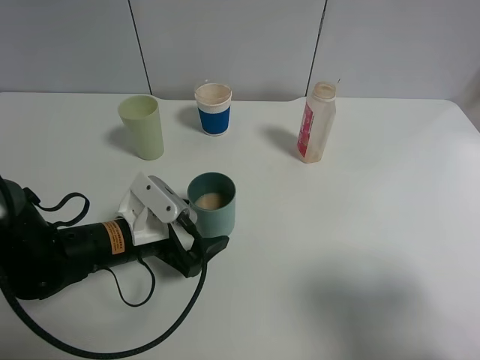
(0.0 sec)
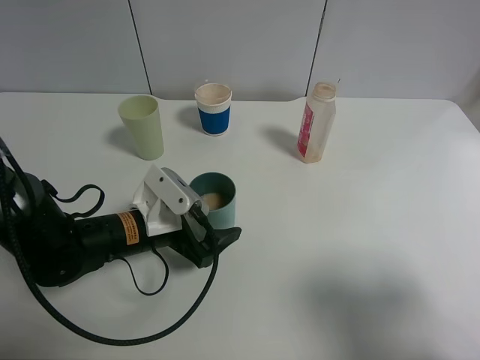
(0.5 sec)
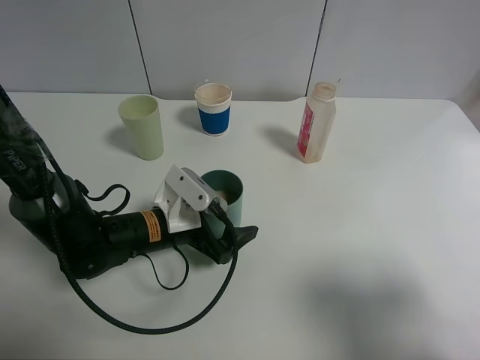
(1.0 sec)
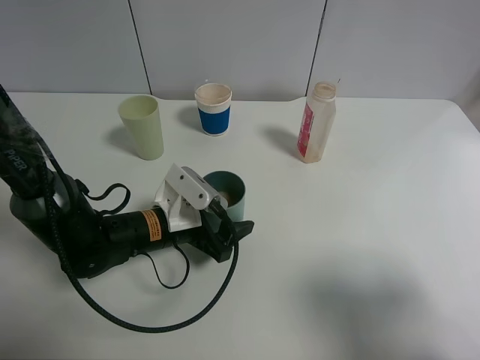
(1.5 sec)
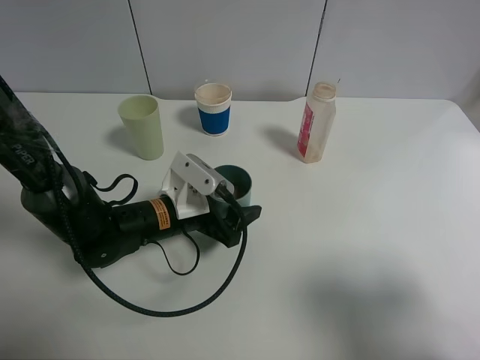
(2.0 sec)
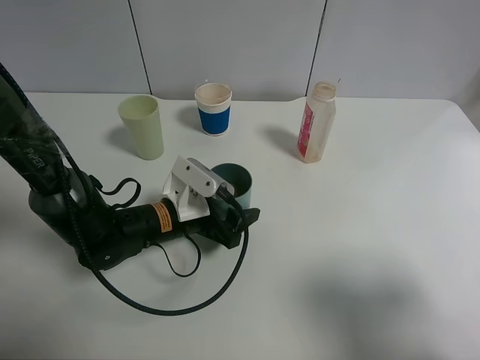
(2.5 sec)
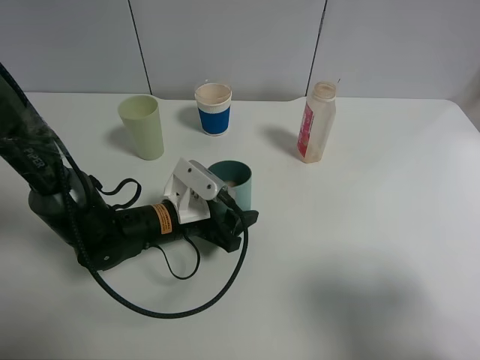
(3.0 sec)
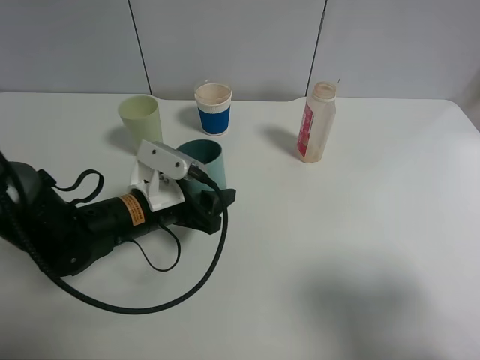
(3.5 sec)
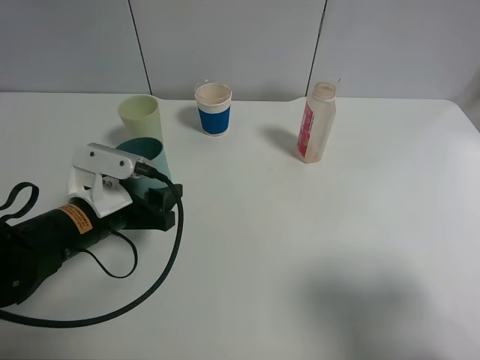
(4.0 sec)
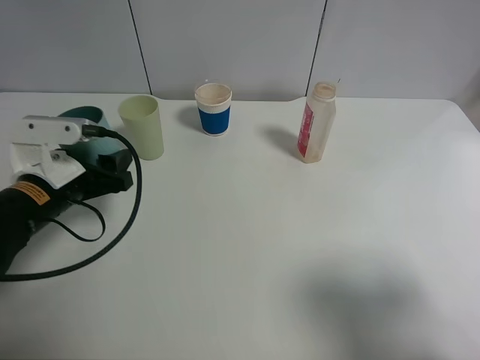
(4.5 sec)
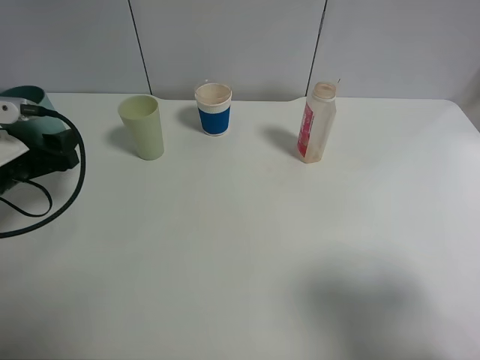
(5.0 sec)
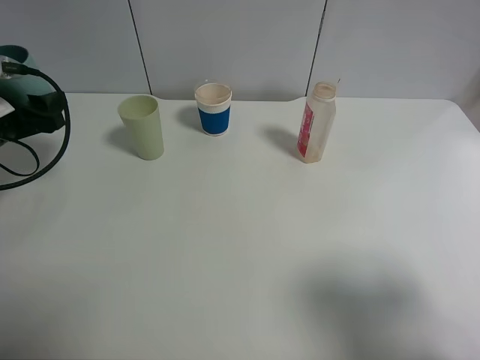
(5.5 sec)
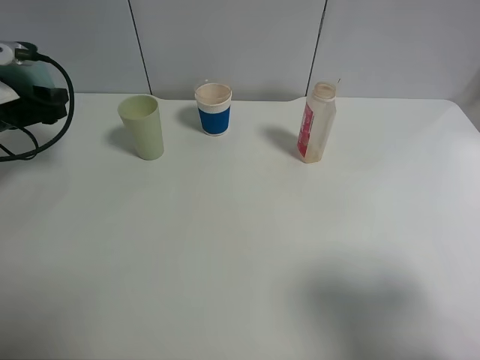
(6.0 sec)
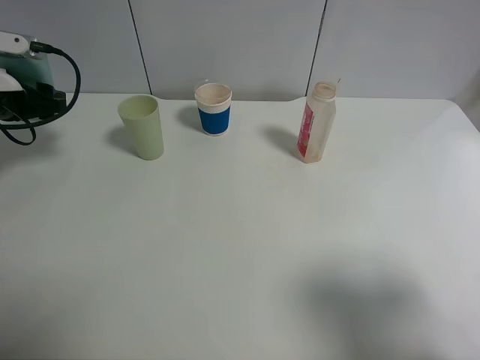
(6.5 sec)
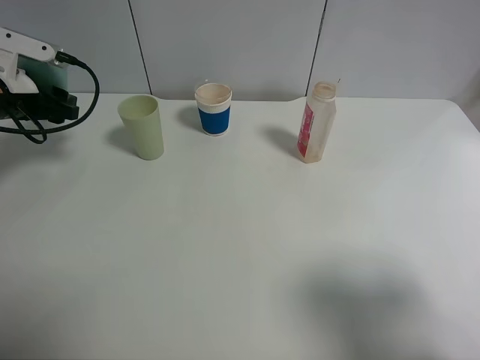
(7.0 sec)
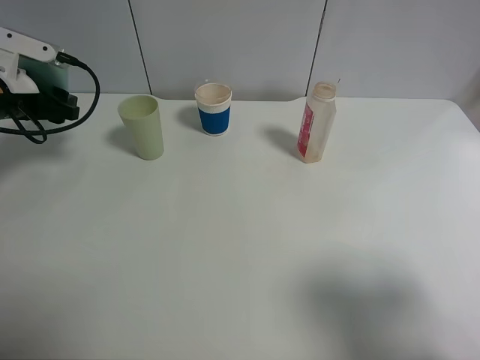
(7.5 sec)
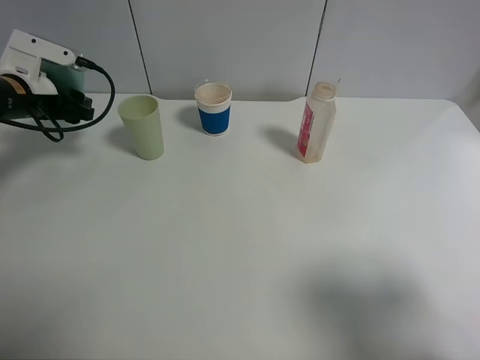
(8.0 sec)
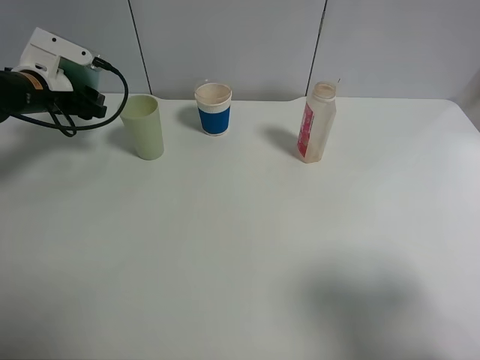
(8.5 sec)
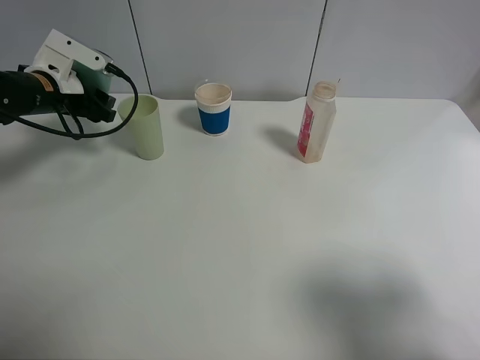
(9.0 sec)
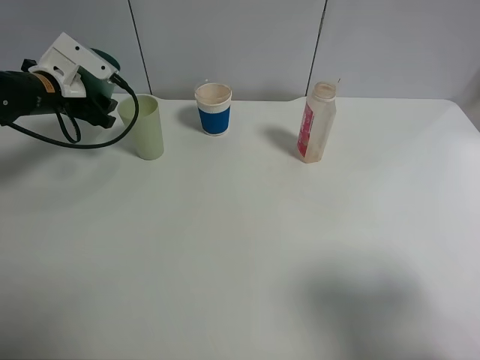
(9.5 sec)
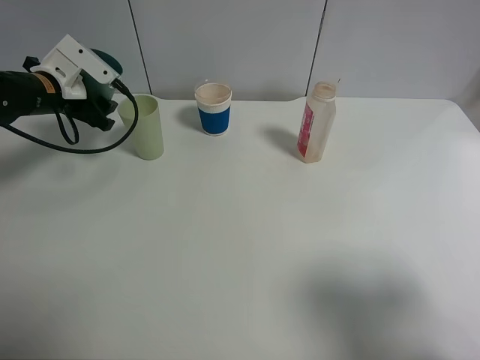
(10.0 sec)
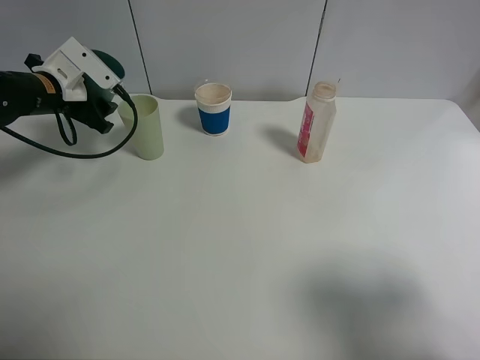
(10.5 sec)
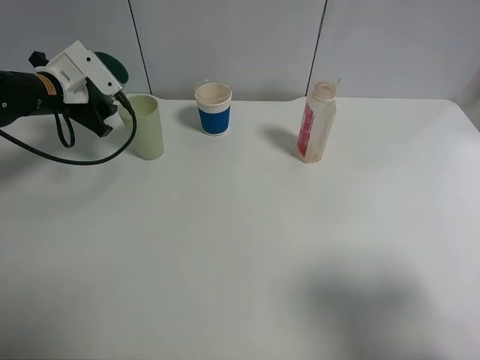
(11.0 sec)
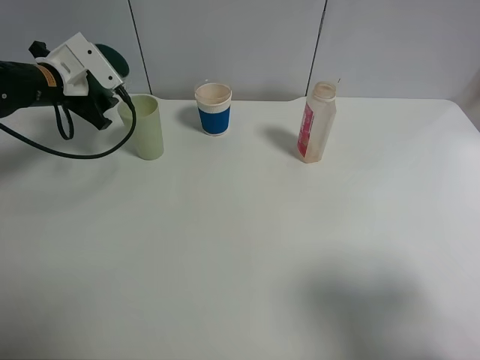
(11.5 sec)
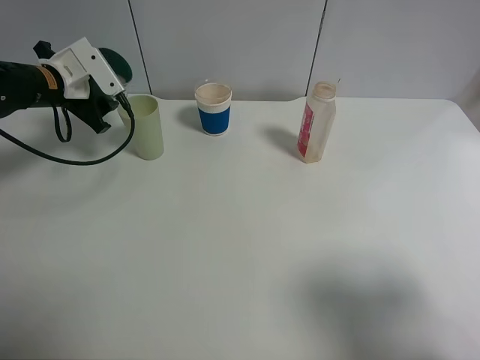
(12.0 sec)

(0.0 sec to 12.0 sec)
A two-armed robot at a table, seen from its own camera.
Task of the whole recording: use a clamp to hold the bottle of the drink, pour the beverage into a random cup, then clamp the cup containing the drink and pour the drink into another random cup.
Step, 0.0 sec - 2.5 sec: Pick up the blue plastic cup bottle with left gripper.
0.0 sec - 2.0 sec: The left gripper shifts by roughly 5 cm, and closes its fingers.
2.0 sec - 4.0 sec: The left gripper heads to the left, covering some 5 cm.
4.0 sec - 6.0 sec: The left gripper heads to the left, forward and upward, covering approximately 20 cm.
6.0 sec - 8.0 sec: The left gripper goes about 5 cm forward.
10.0 sec - 12.0 sec: There are only small adjustments of the grippers.

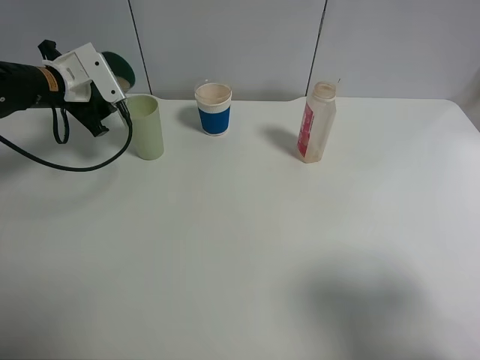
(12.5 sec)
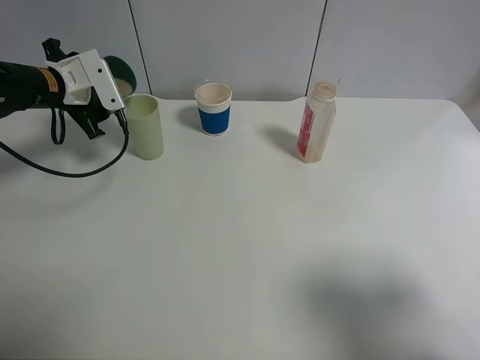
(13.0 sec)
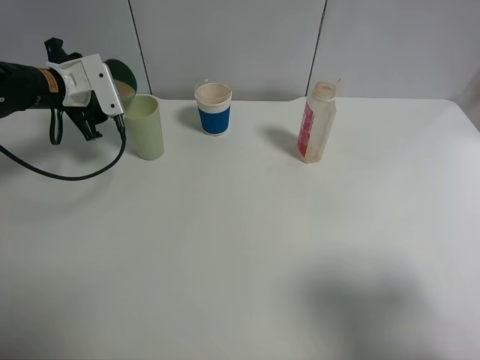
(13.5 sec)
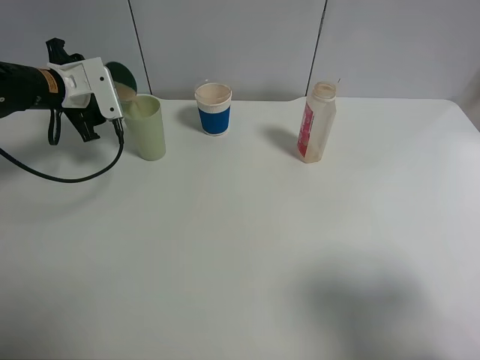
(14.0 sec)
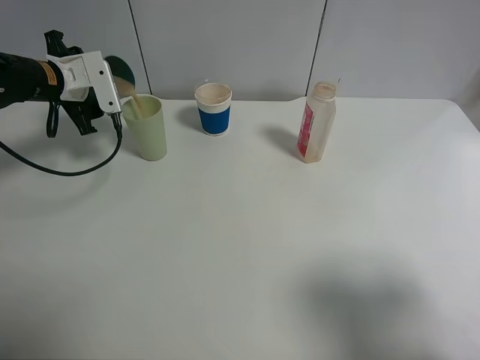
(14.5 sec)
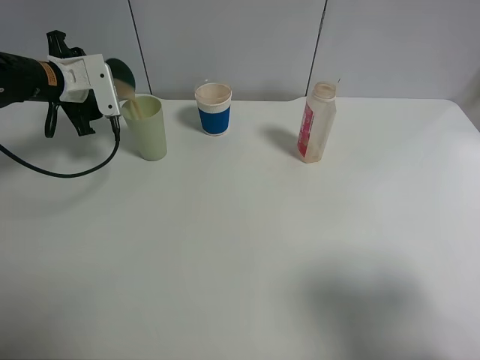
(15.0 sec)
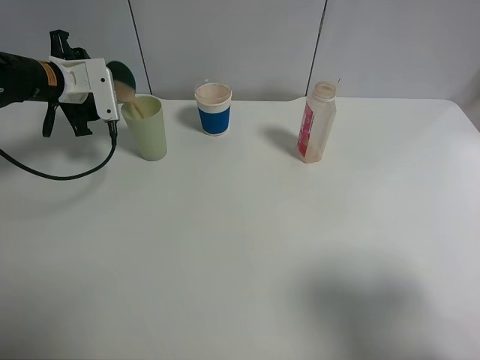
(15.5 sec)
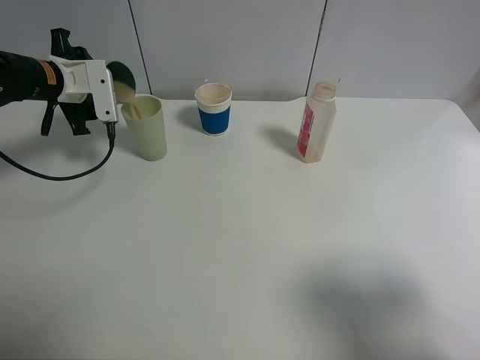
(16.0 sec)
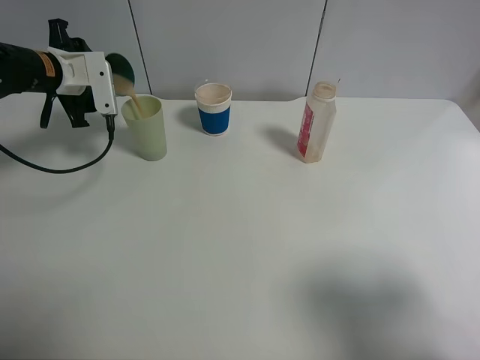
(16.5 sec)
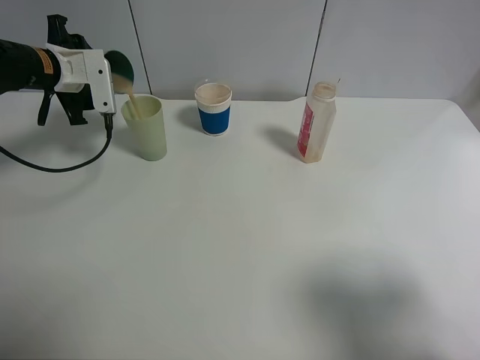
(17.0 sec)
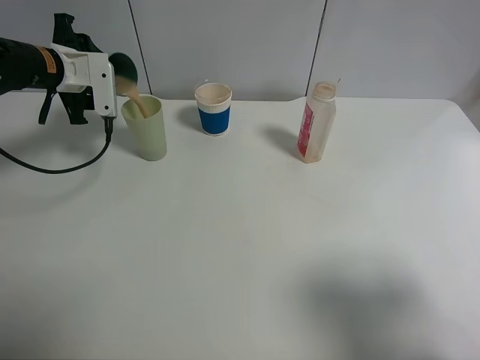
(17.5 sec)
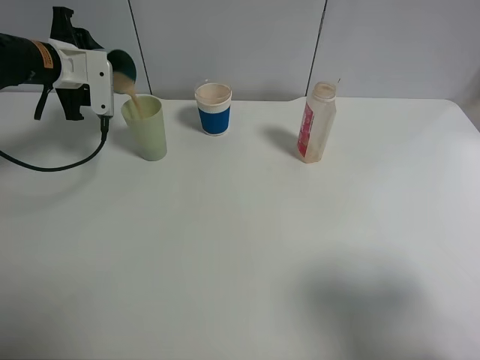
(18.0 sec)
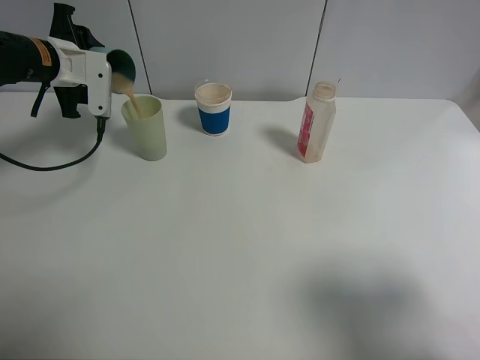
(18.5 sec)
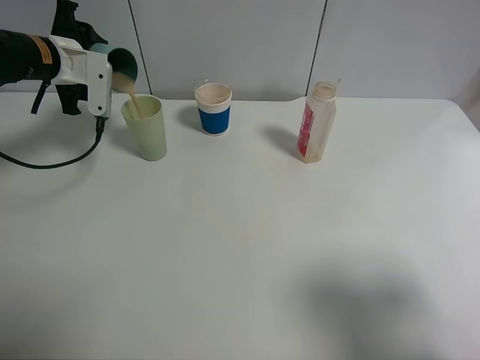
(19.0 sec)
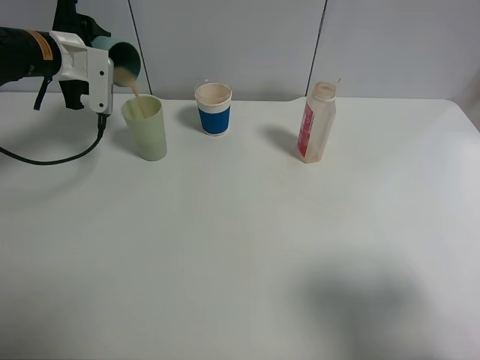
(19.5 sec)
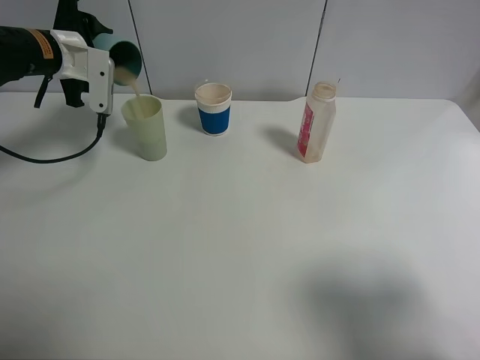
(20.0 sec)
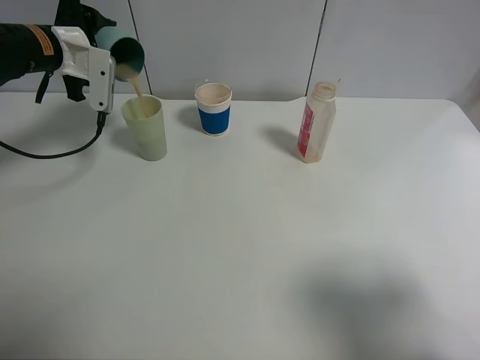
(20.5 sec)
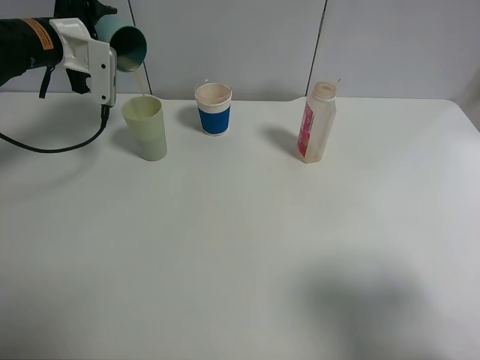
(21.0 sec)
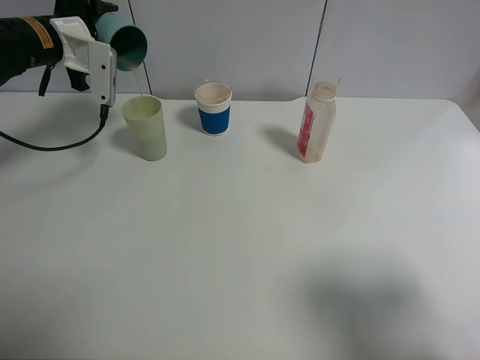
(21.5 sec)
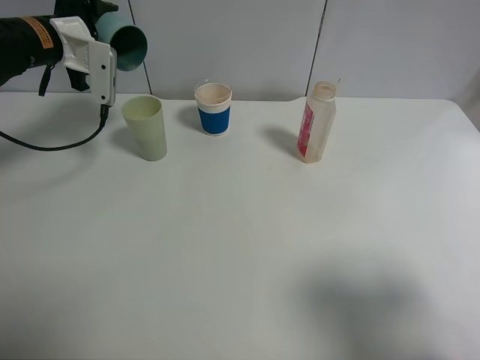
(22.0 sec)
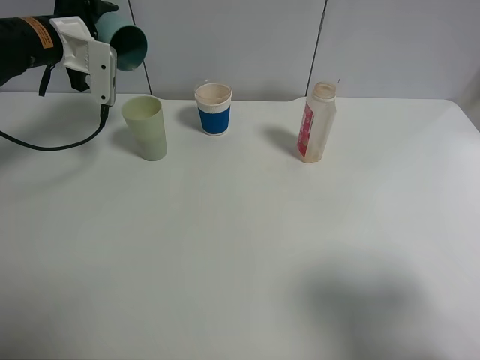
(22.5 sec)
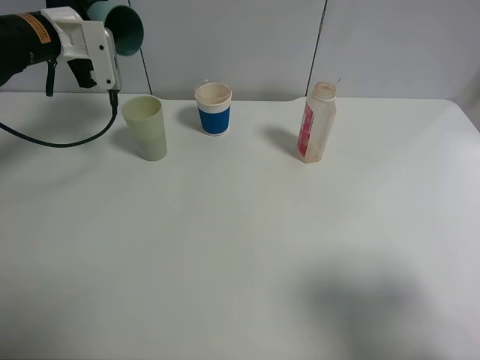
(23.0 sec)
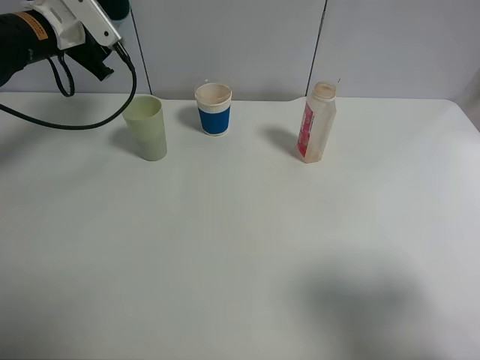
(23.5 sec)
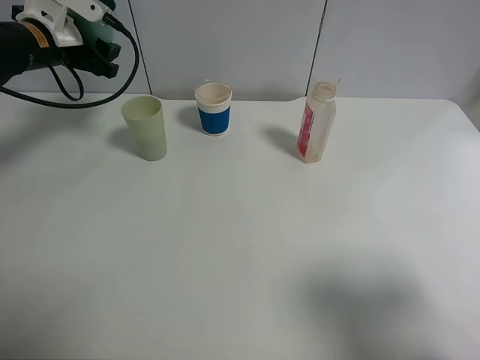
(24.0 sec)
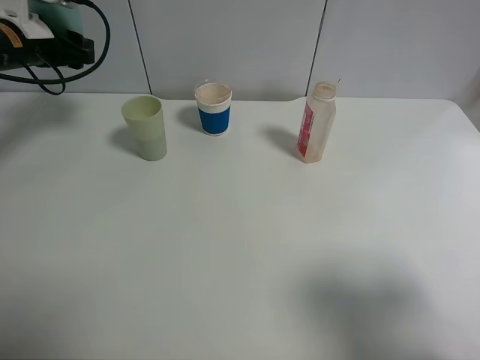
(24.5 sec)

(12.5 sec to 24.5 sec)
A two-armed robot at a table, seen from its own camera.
Task of the whole recording: use a clamp to hold the bottle of the drink, pour the beverage into a random cup, then clamp the cup containing the drink and pour the drink into another random cup.
Step, 12.5 sec - 23.0 sec: Pour the drink into the green plastic cup with left gripper.
12.5 sec - 14.5 sec: The grippers make only small movements.
14.5 sec - 16.5 sec: The grippers make only small movements.
16.5 sec - 18.5 sec: The grippers move only a little.
18.5 sec - 20.5 sec: There are only small adjustments of the grippers.
20.5 sec - 22.5 sec: There are only small adjustments of the grippers.

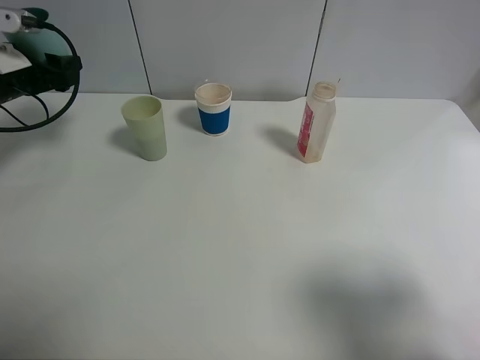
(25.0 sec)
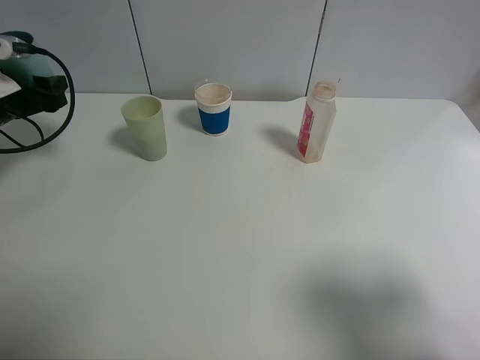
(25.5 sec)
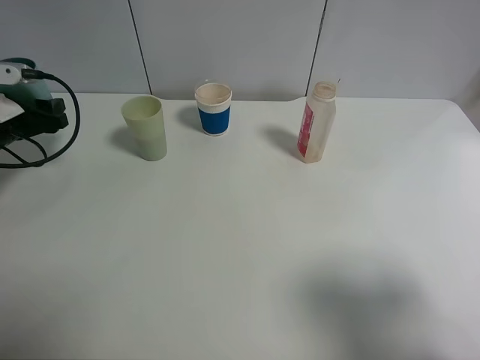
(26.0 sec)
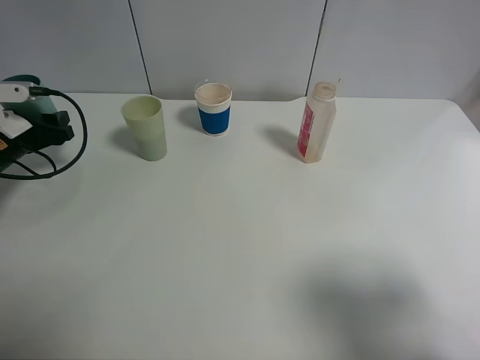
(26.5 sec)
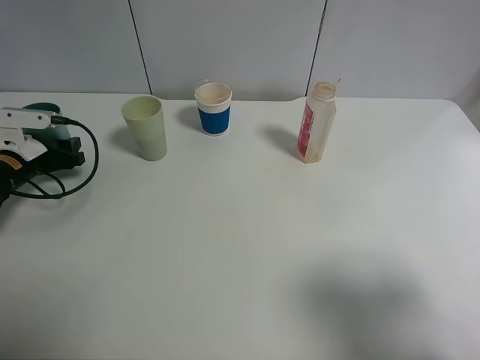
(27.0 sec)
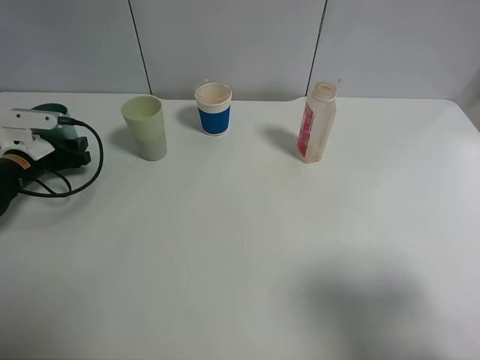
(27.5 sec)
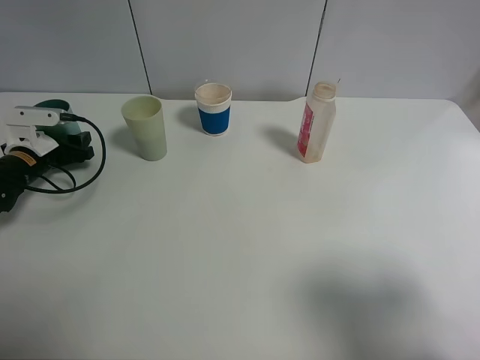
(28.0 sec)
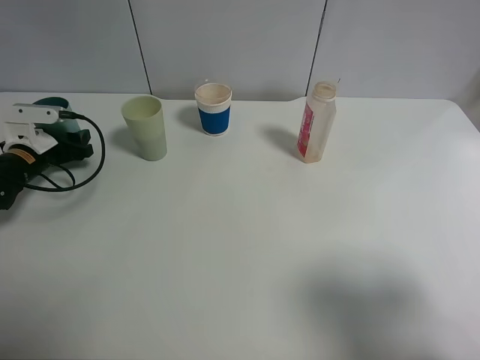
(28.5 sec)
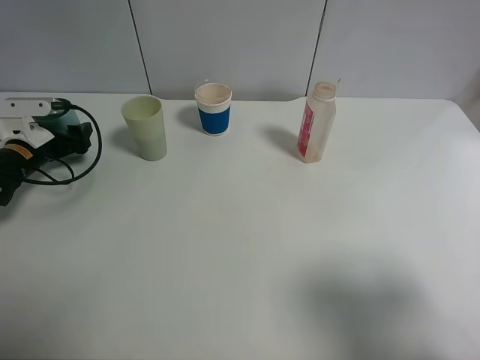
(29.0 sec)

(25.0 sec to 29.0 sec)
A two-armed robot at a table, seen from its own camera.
Task of the whole recording: use a clamp to hold the bottle of the drink, pour the beverage into a random cup, then clamp the cup containing the drink and pour the drink into another random cup.
25.0 sec - 27.0 sec: The left gripper heads downward, covering roughly 10 cm.
27.0 sec - 29.0 sec: The left gripper opens its fingers.
